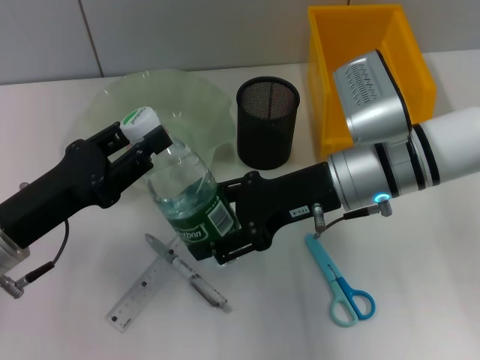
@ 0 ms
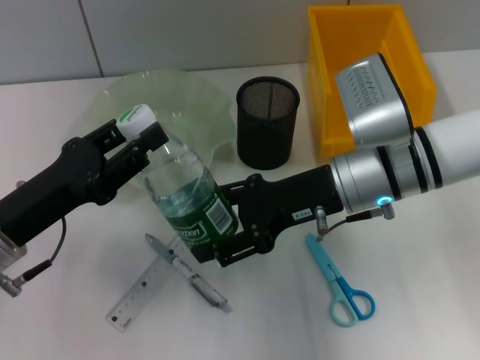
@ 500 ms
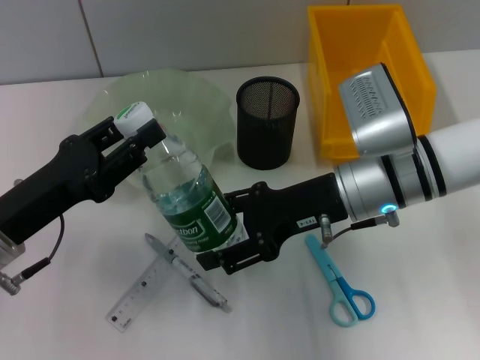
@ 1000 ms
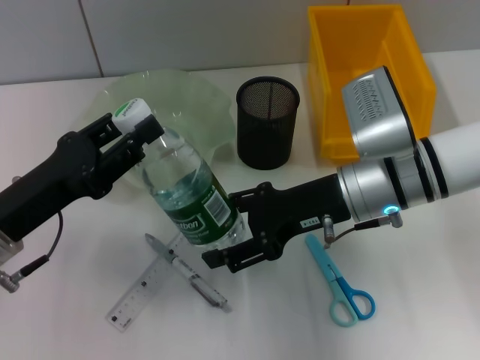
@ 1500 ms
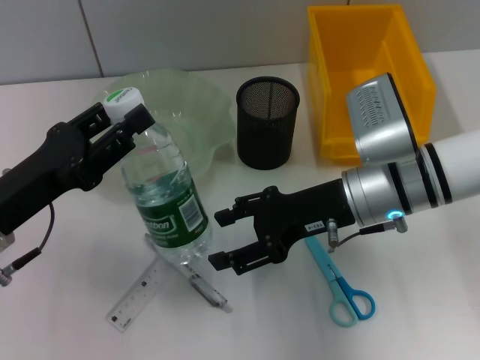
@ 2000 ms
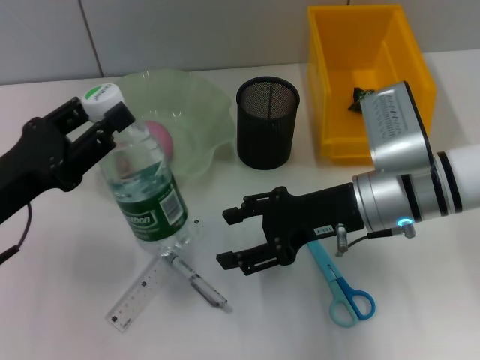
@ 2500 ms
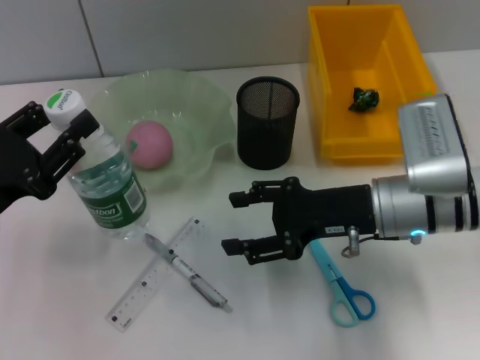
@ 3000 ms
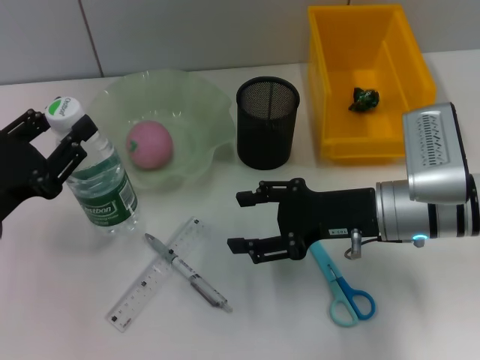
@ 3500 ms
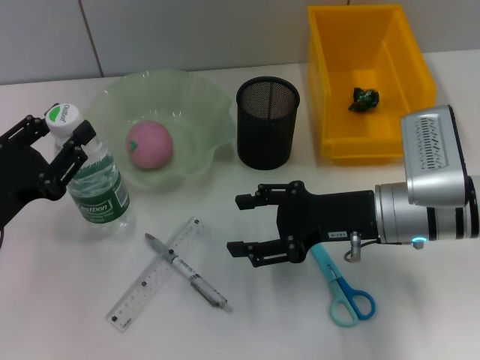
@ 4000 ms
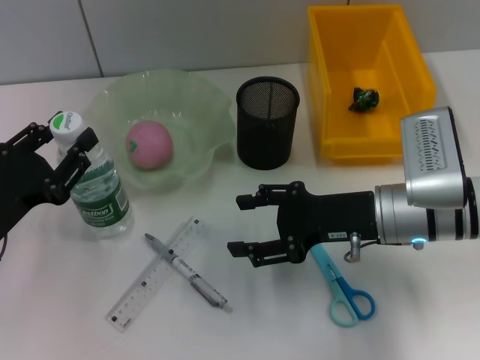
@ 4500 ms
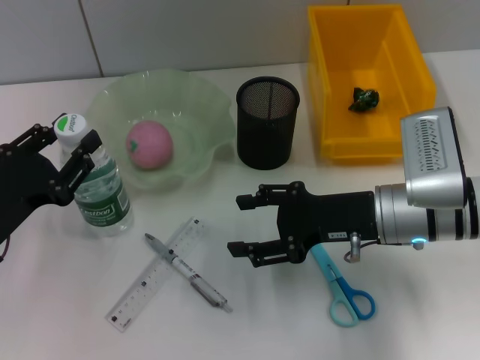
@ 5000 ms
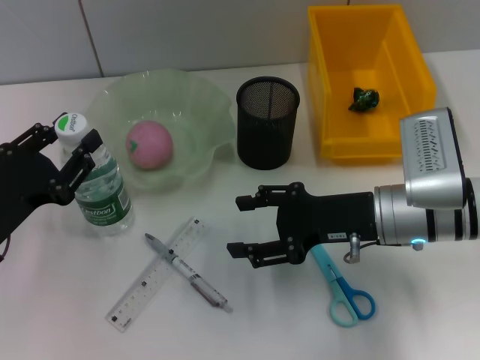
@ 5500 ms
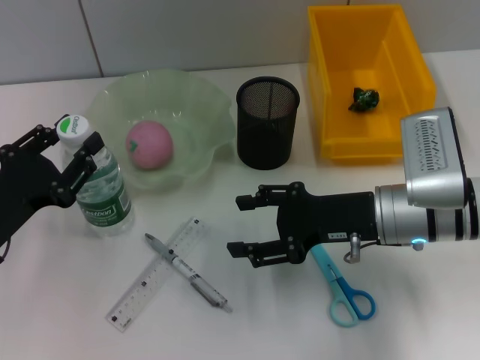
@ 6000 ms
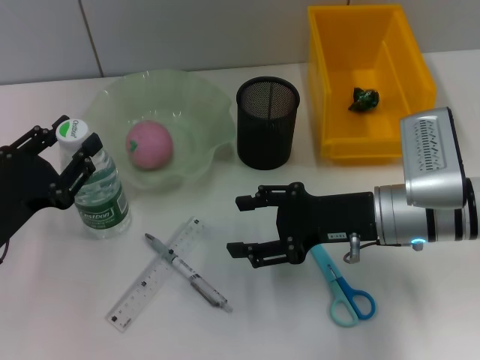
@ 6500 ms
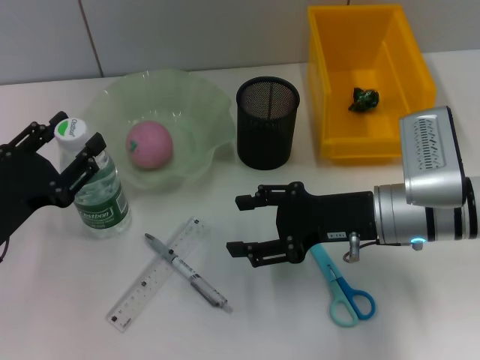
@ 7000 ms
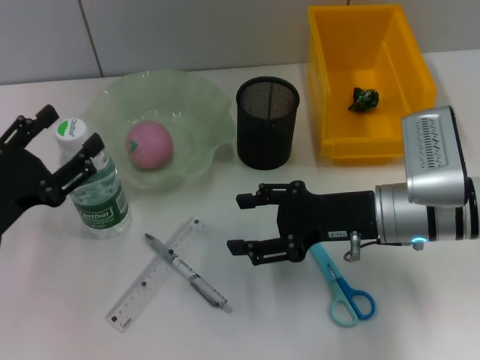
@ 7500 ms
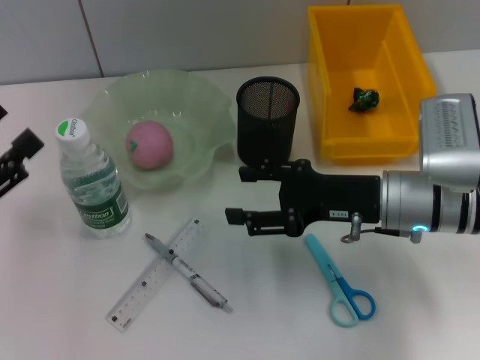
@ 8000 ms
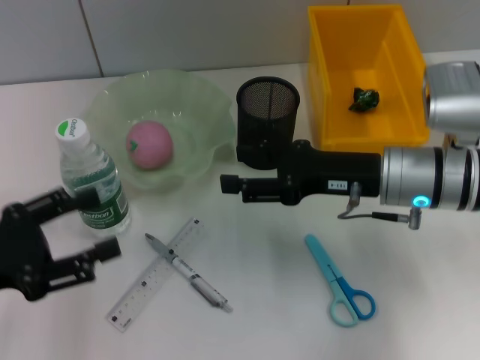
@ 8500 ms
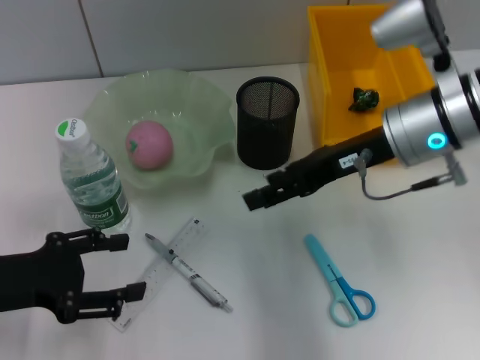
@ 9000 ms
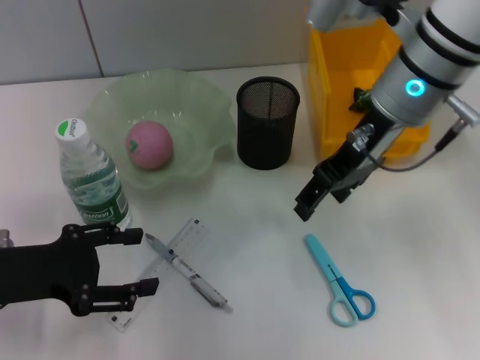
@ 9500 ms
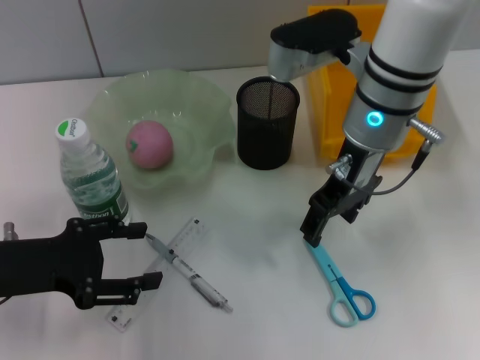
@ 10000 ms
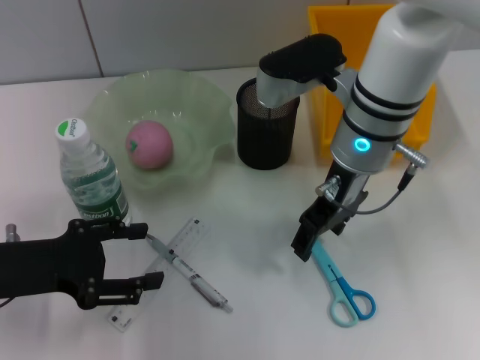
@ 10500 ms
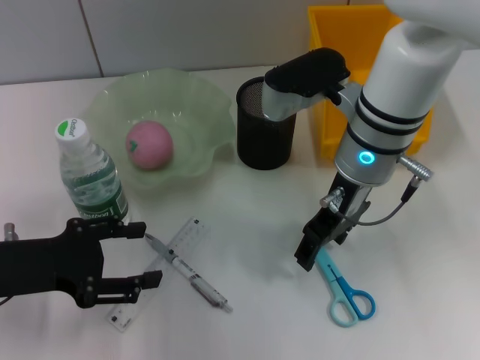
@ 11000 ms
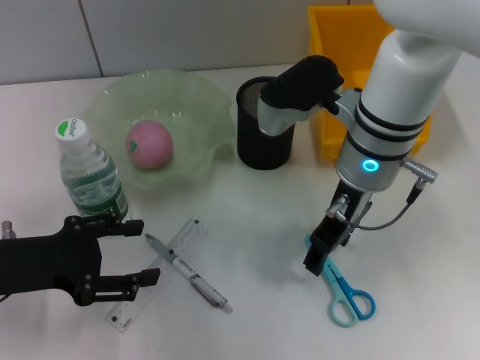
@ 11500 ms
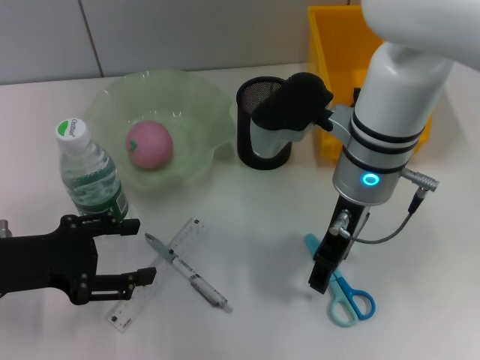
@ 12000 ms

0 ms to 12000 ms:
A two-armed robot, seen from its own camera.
Step, 2000 ms to 7000 ms: Place the water bottle on the table with the left hand.
4000 ms to 6000 ms: Both grippers stay put.
6000 ms to 8000 ms: The left gripper moves to the left, some 5 cm, and opens its fingers.
8000 ms to 10000 ms: The left gripper heads to the right, covering about 5 cm, while the right gripper moves upward, to the left and forward, roughly 15 cm.
10000 ms to 12000 ms: The grippers move only a little.

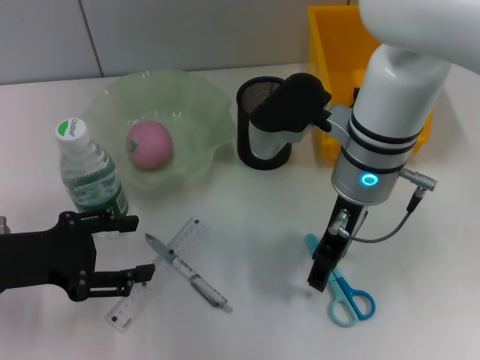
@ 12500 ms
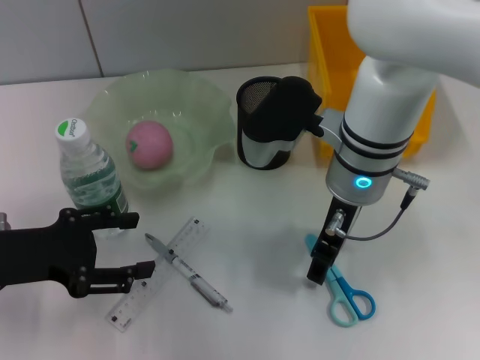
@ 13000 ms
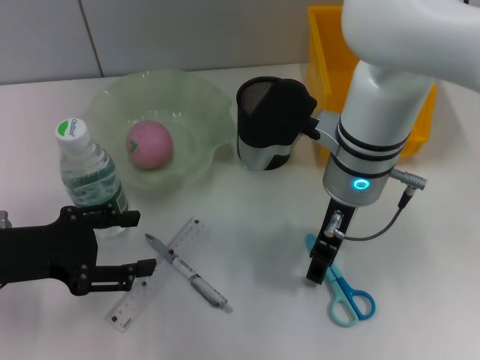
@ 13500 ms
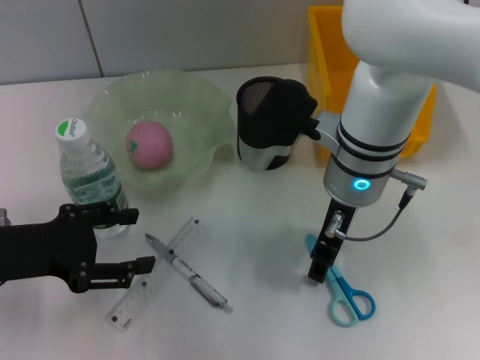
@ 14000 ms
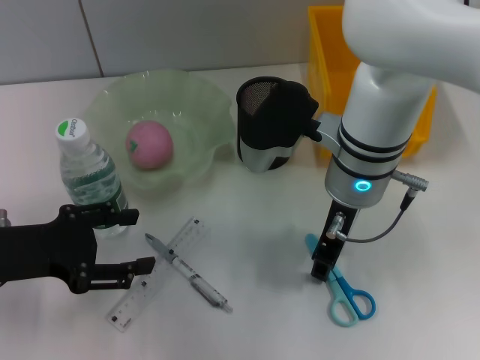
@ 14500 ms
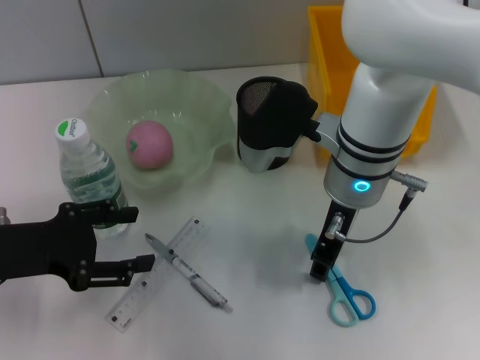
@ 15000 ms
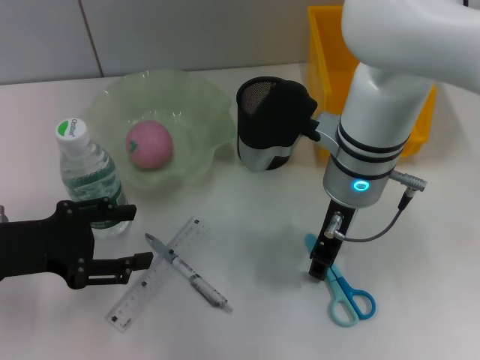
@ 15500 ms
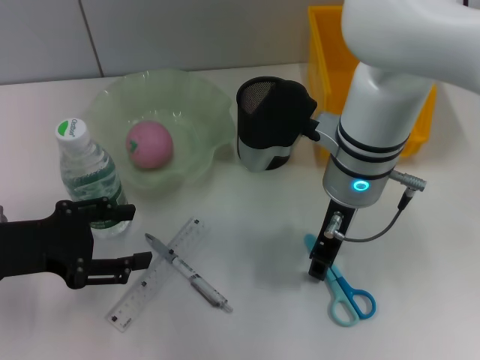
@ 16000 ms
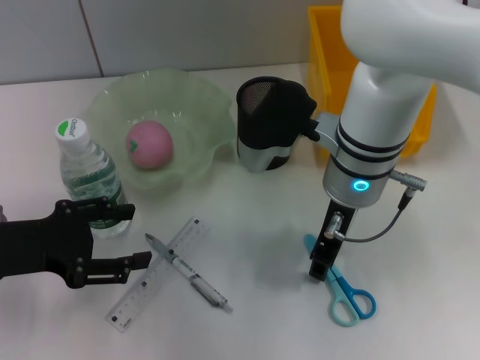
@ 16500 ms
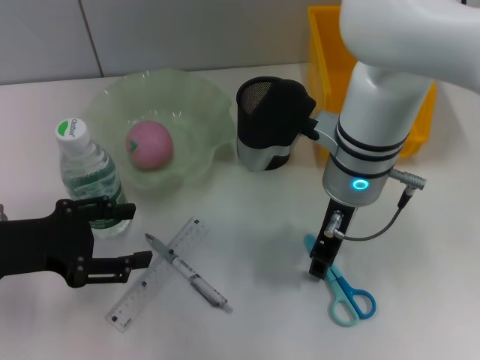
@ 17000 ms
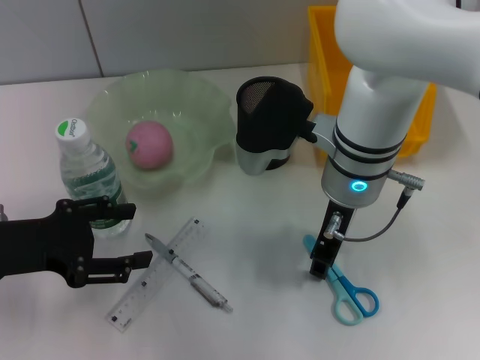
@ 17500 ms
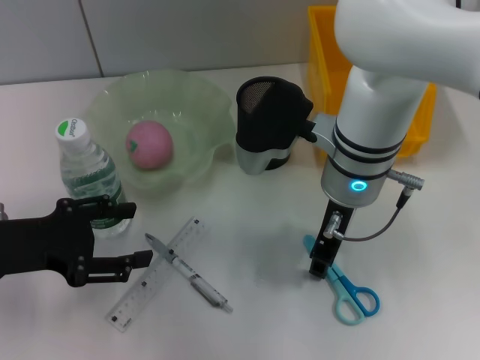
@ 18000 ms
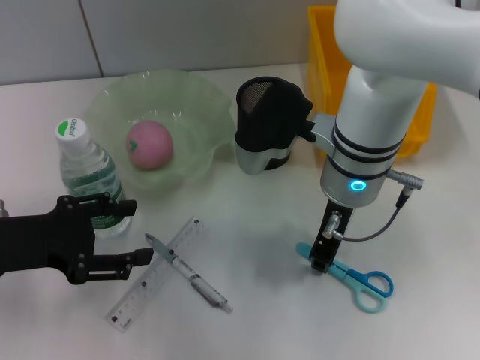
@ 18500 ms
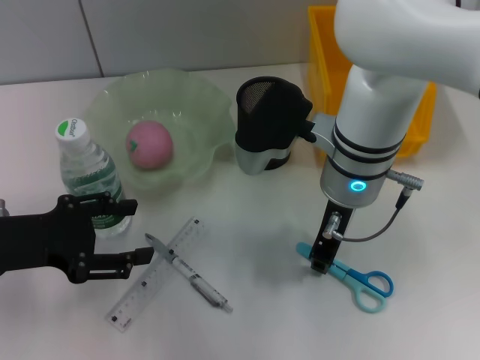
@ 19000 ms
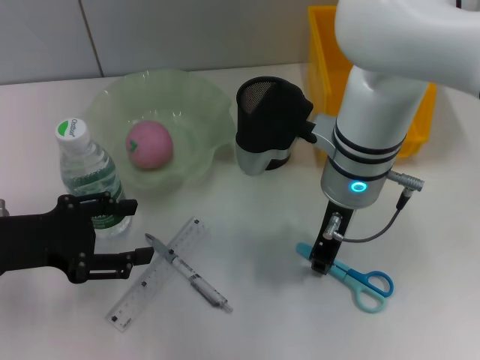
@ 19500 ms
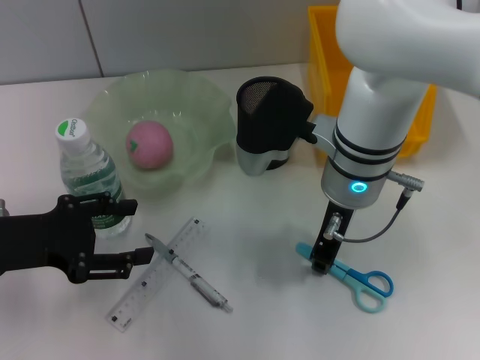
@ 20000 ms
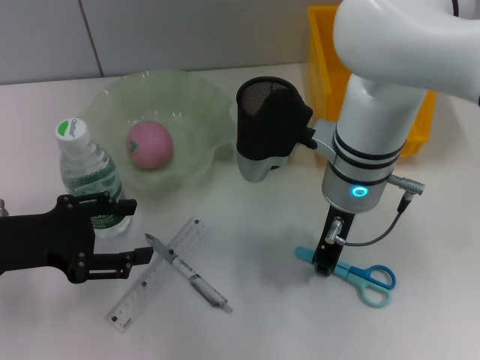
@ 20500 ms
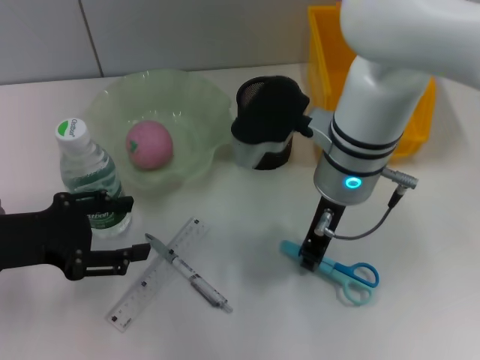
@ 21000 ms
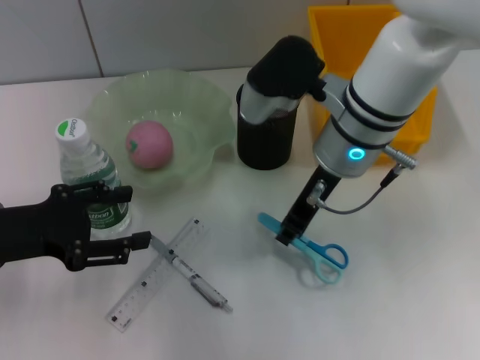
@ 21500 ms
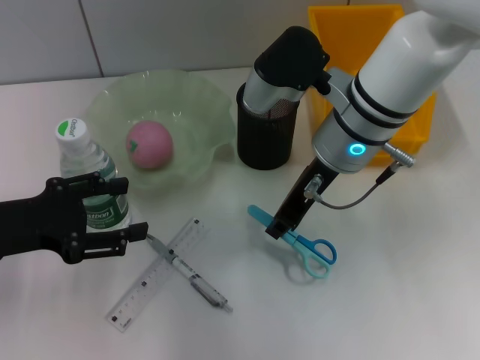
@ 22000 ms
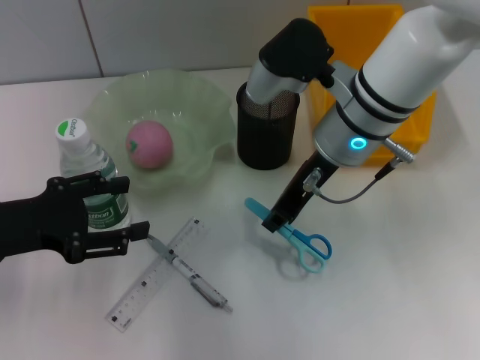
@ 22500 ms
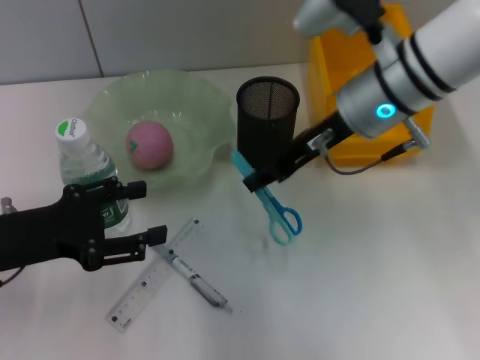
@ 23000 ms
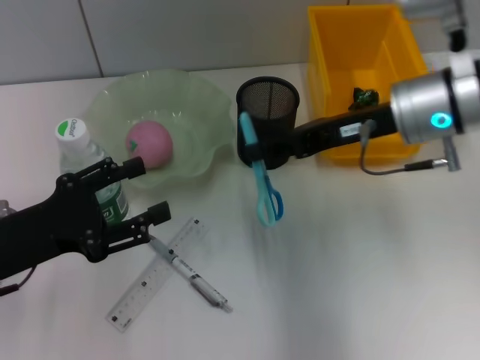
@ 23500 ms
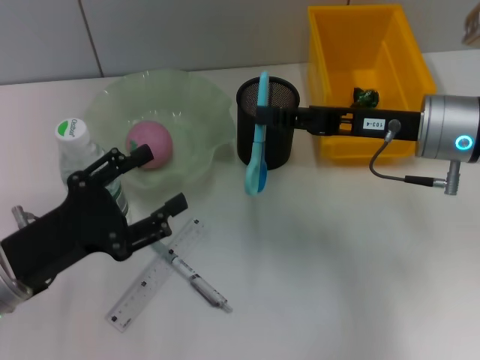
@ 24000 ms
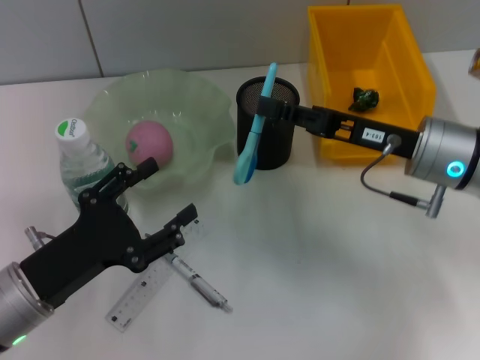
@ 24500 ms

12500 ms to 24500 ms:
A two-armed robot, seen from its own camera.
Step, 12500 ms to 20500 ms: Grab the blue scissors with the right hand.
12500 ms to 14500 ms: The grippers move only a little.
14500 ms to 20500 ms: Neither gripper changes place.
22500 ms to 24500 ms: The left gripper heads downward, backward and to the right, covering about 10 cm. Meanwhile the right gripper goes about 10 cm to the right and downward.

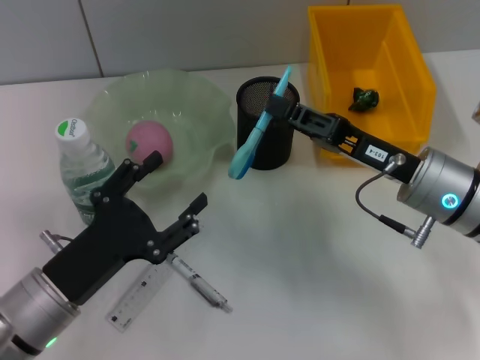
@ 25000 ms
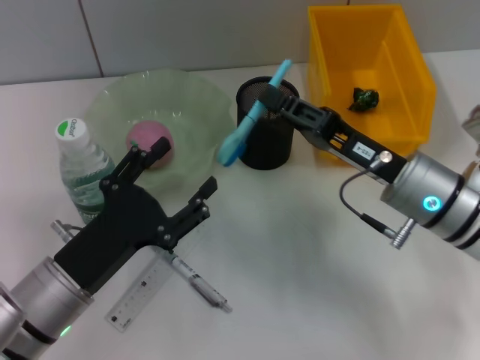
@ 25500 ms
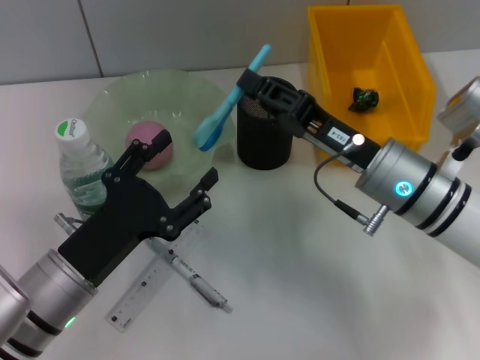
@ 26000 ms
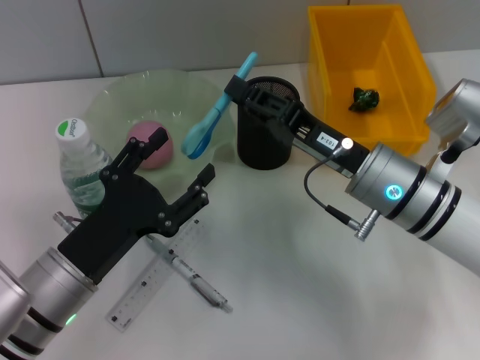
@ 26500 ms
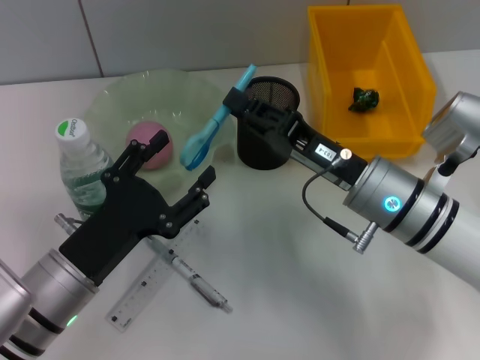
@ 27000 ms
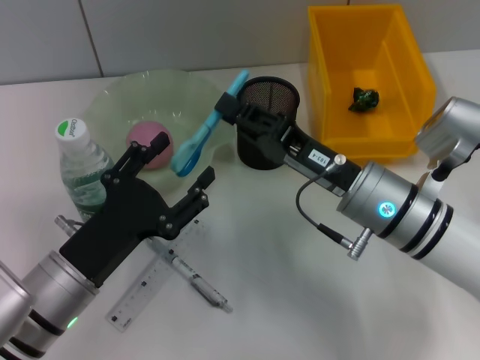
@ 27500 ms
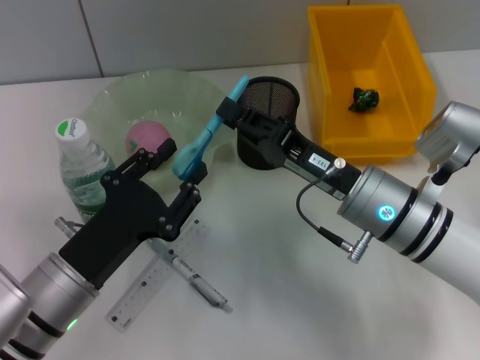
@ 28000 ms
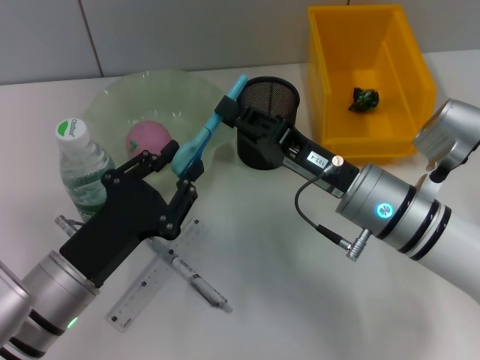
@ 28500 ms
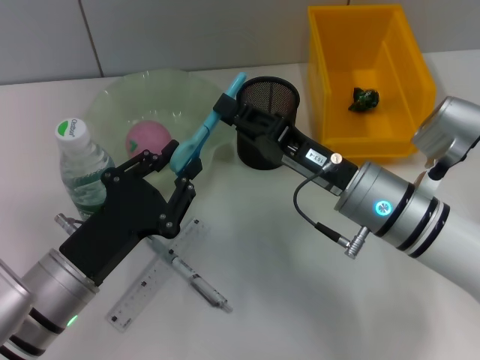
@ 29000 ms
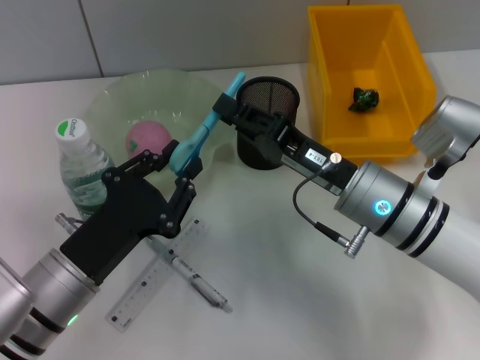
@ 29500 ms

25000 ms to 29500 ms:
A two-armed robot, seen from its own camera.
25000 ms to 27000 ms: The right gripper moves to the left, approximately 5 cm.
27000 ms to 29500 ms: The left gripper closes.
